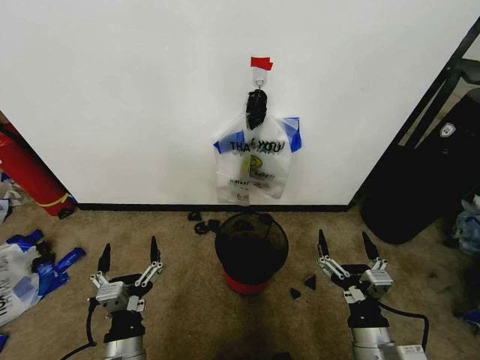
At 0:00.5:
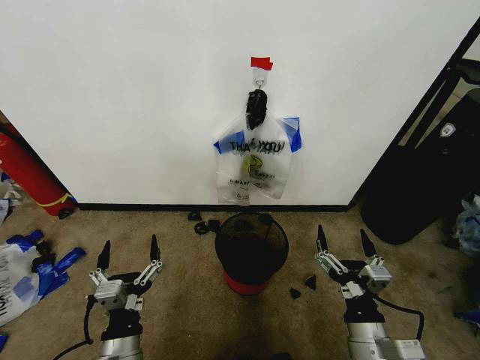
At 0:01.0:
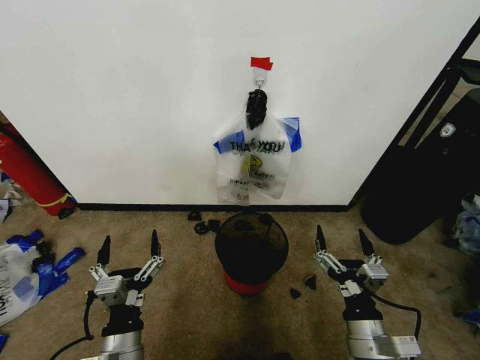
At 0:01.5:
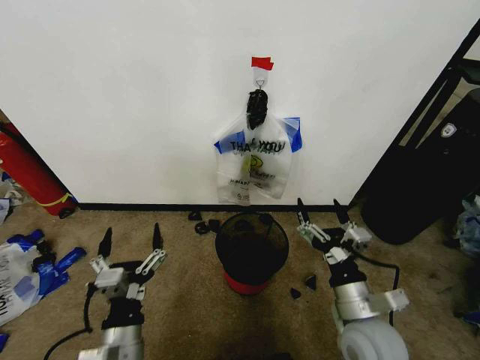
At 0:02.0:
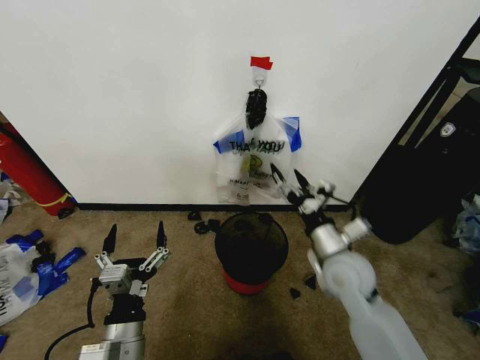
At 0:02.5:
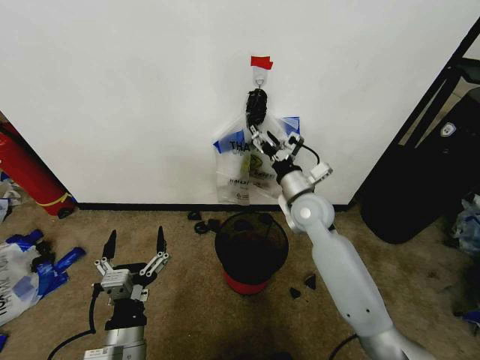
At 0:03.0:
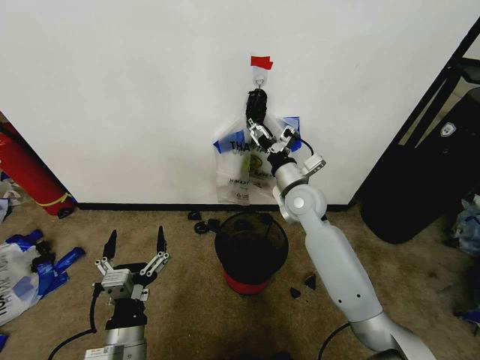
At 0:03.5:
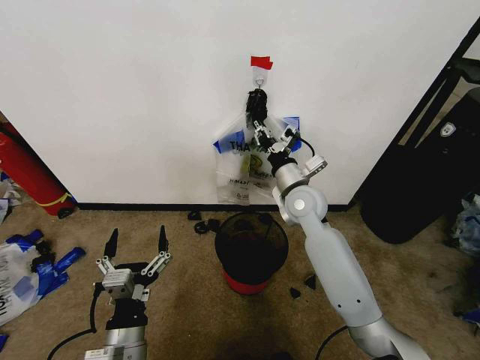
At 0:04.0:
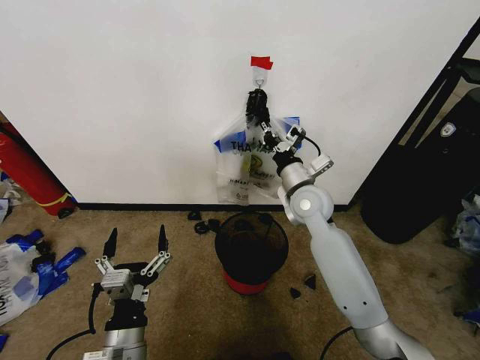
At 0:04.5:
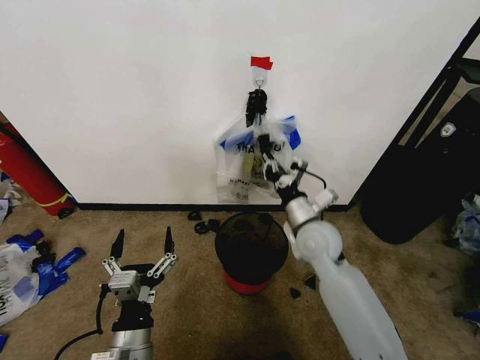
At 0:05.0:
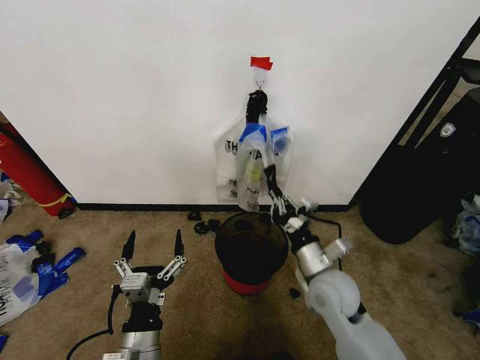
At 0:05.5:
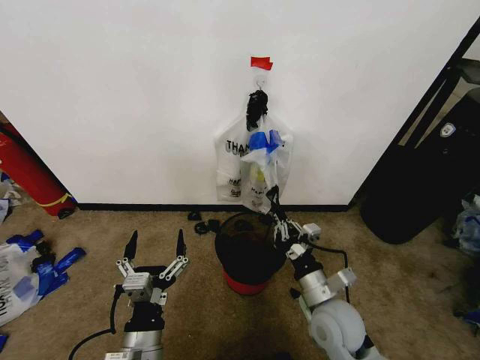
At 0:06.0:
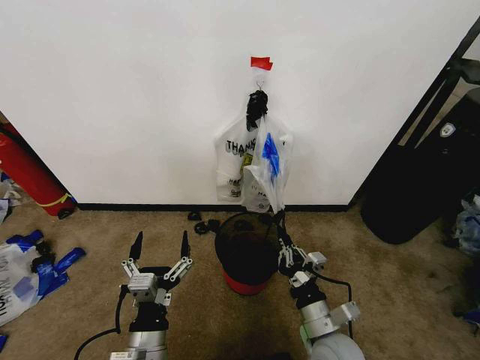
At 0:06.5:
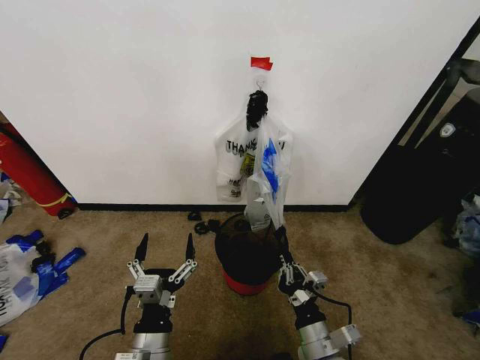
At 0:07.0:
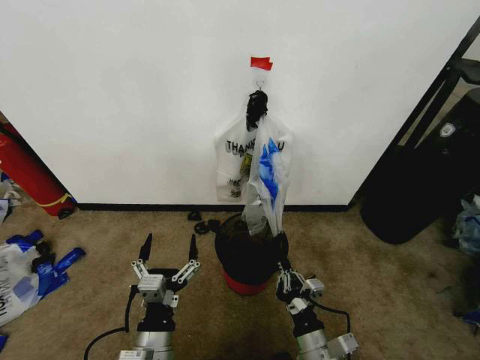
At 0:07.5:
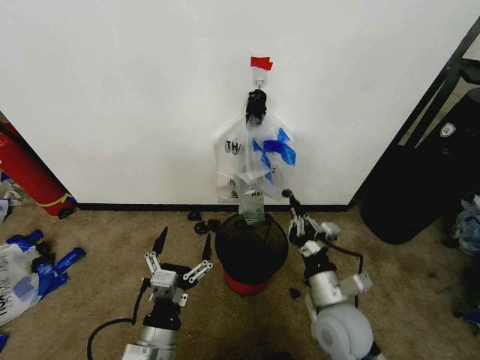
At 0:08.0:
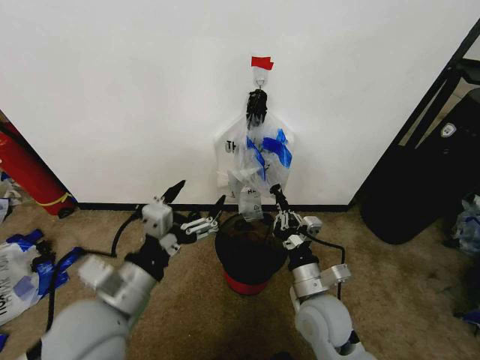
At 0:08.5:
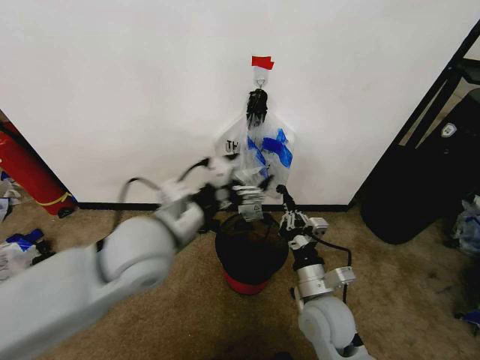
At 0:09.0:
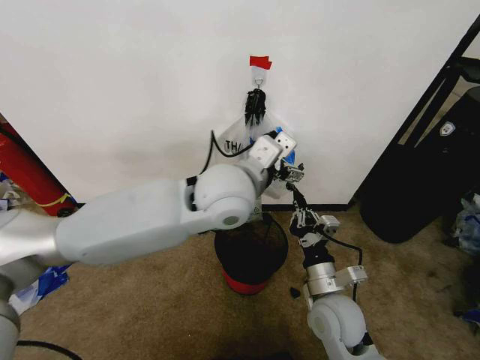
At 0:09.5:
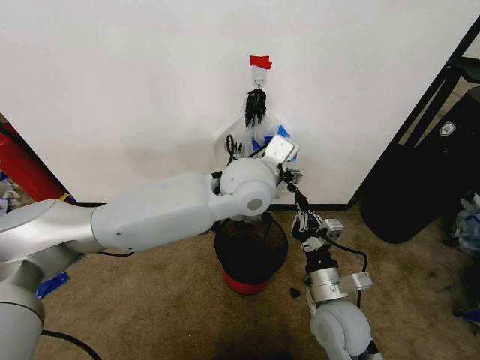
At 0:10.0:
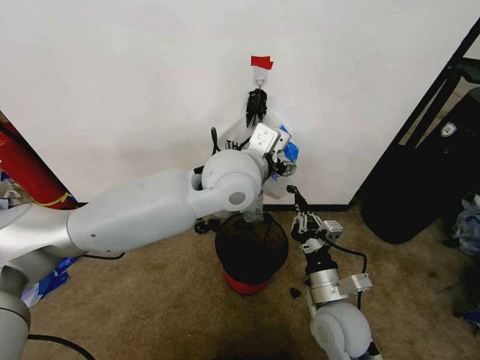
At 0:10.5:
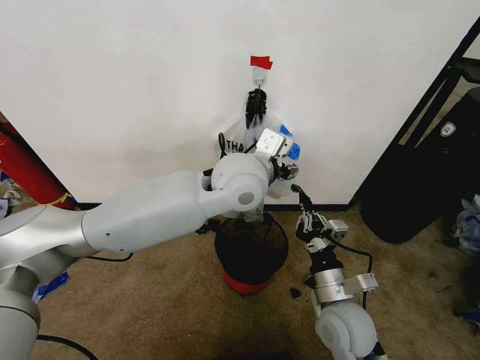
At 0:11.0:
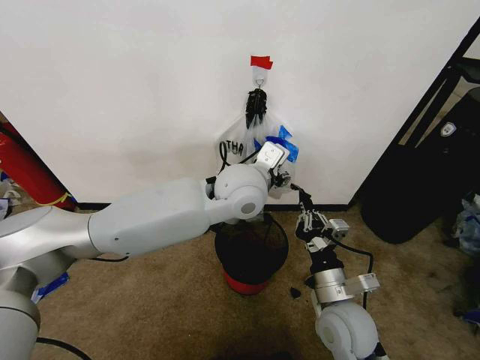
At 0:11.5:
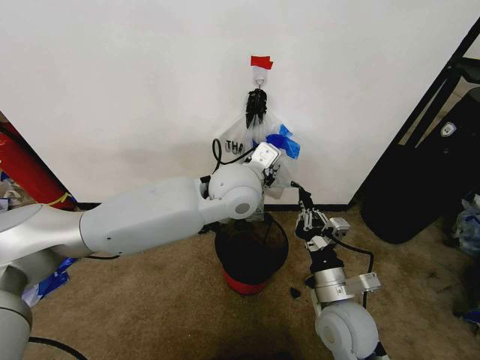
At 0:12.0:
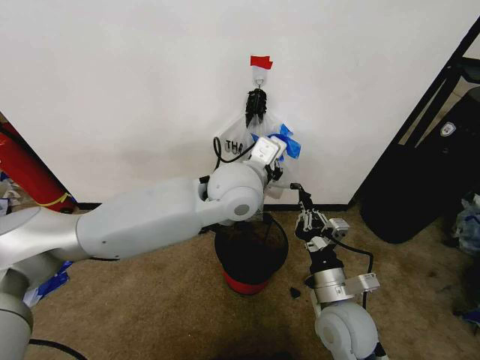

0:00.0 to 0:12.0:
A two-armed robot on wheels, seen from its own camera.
Task of the whole recording: Pick up the garbage bag from the wall and place it over the trash bin.
0:02.0 to 0:04.0: The right gripper is displaced forward and upward by approximately 15 cm, and closes its fingers.
0:04.0 to 0:06.0: The right gripper shifts approximately 30 cm backward and downward.
0:06.0 to 0:08.0: The right gripper travels forward by roughly 5 cm, while the left gripper heads upward and forward, covering roughly 15 cm.
0:08.0 to 0:10.0: The left gripper is displaced to the right, forward and upward by approximately 30 cm.
0:10.0 to 0:12.0: The left gripper closes its fingers.

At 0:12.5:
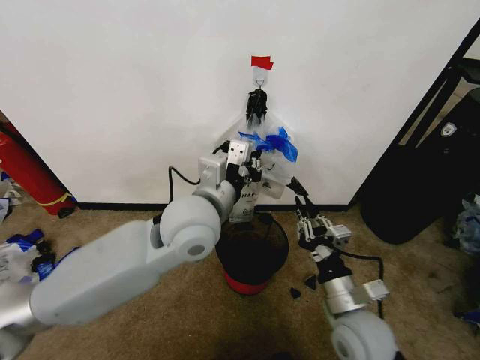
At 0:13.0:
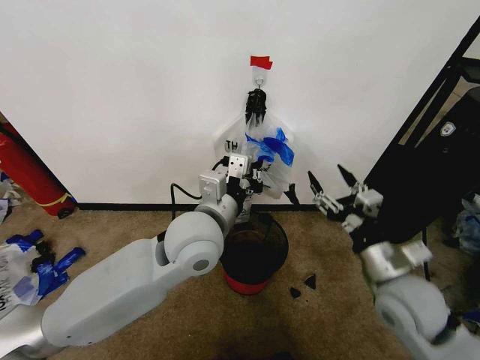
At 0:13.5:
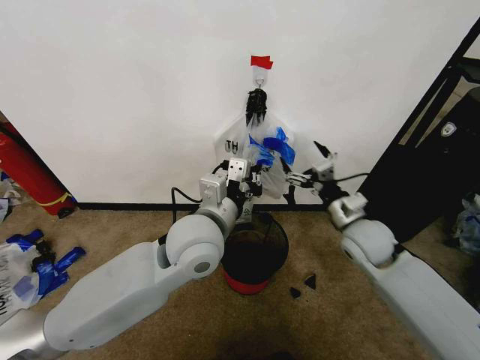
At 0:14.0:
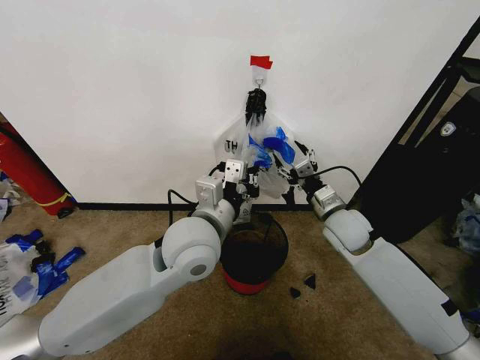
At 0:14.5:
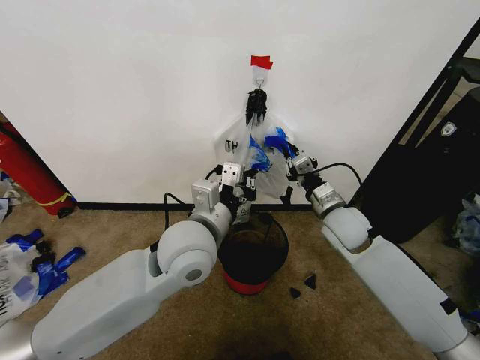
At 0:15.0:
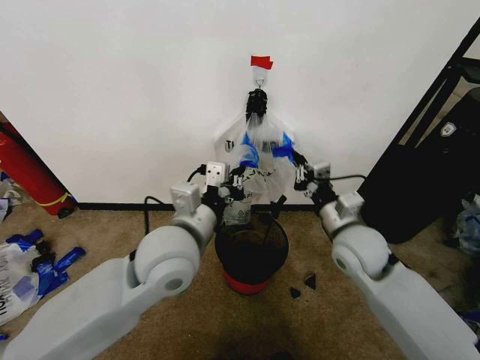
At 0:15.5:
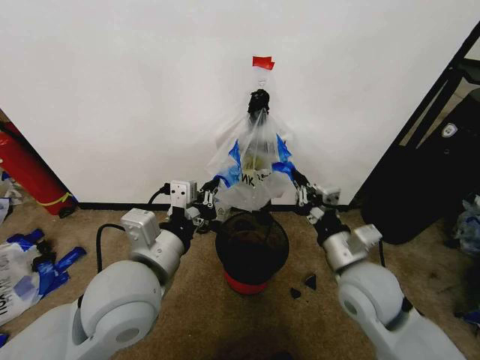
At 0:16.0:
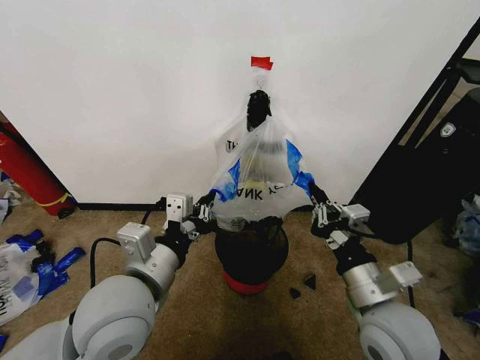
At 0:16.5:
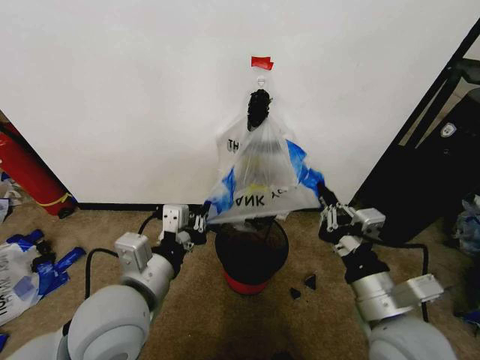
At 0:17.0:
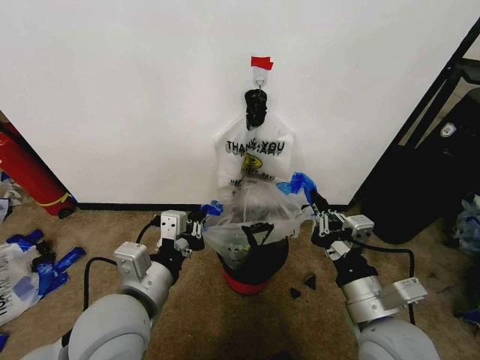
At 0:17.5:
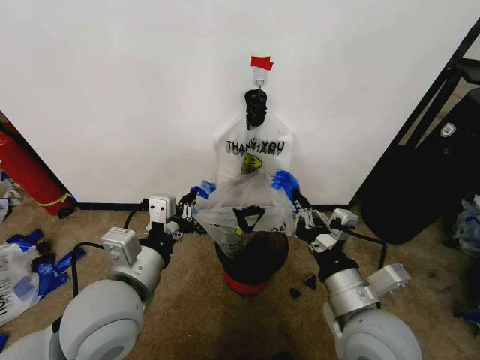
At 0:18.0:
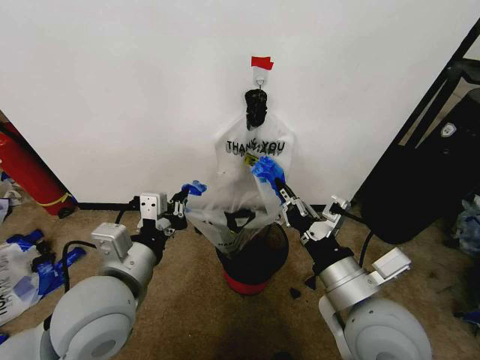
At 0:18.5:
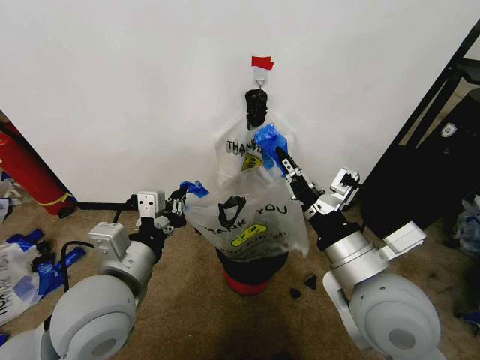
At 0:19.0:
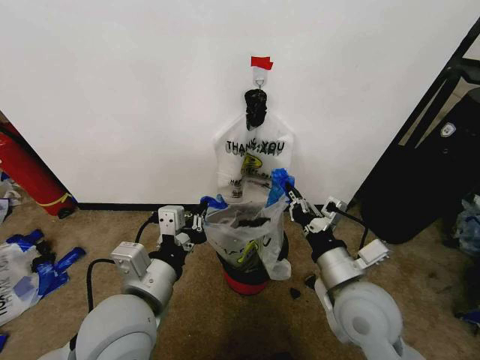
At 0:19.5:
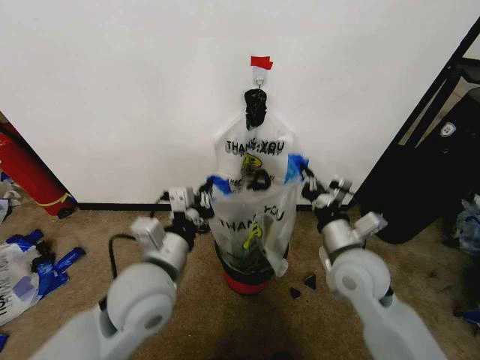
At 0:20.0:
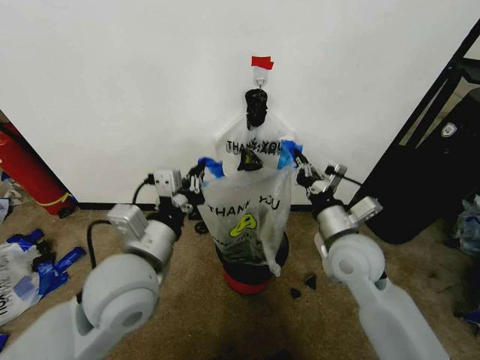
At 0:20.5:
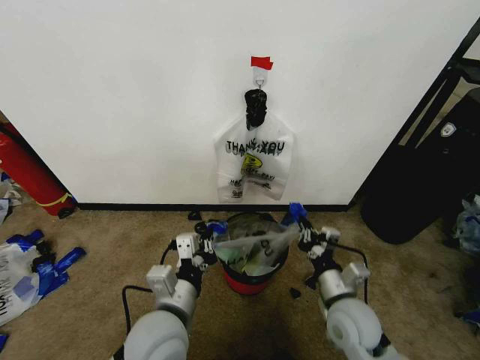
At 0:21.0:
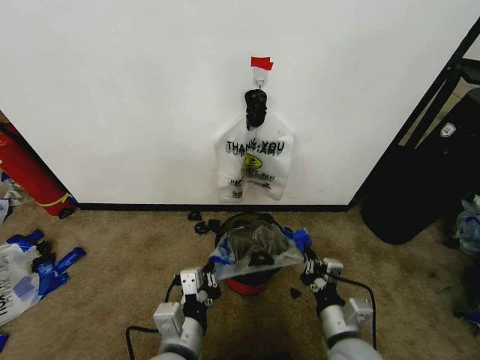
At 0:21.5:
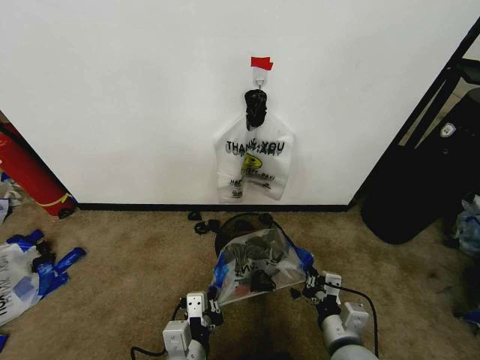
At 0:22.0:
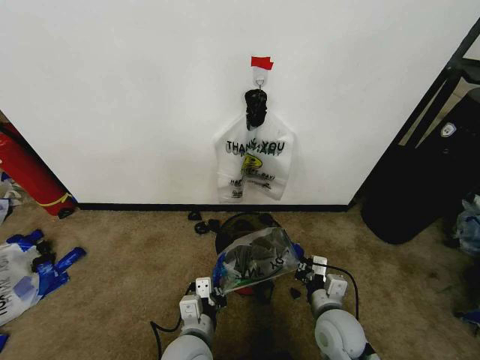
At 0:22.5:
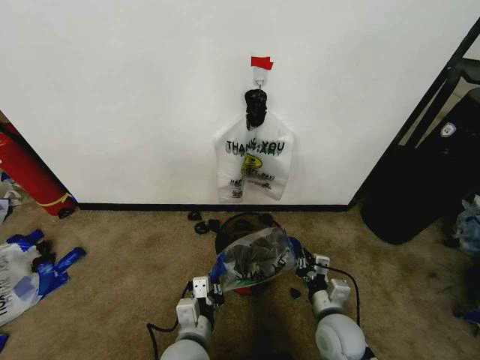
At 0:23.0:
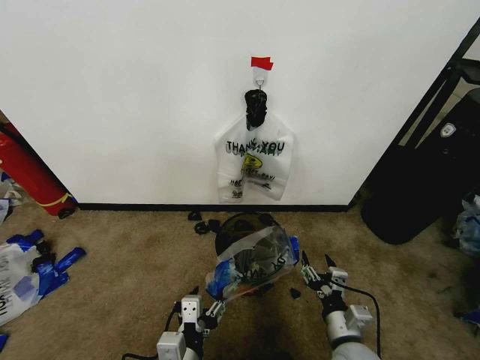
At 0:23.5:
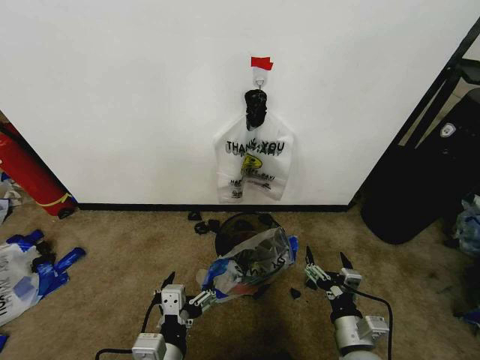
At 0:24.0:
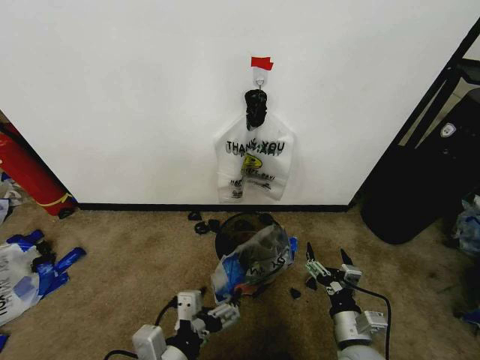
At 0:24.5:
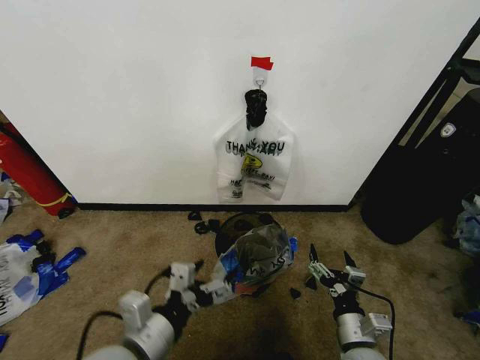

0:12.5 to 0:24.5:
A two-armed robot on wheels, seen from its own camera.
Task of the whole recording: Pick up the garbage bag from the wall and place it over the trash bin.
0:12.5 to 0:14.5: The right gripper moves forward, roughly 20 cm, and opens, then closes again.
0:14.5 to 0:16.5: The right gripper heads backward, covering about 25 cm; the left gripper goes approximately 15 cm backward and to the left.
0:16.5 to 0:18.5: The right gripper heads upward, covering about 5 cm.
0:18.5 to 0:20.5: The right gripper moves downward, about 20 cm, while the left gripper is displaced downward and to the right by roughly 10 cm.
0:20.5 to 0:22.5: Both grippers travel together downward, about 10 cm. The right gripper travels backward and back again, some 10 cm each way.
0:22.5 to 0:24.5: The right gripper is displaced backward by approximately 5 cm, and opens its fingers. The left gripper is displaced upward and to the left by some 15 cm, and opens its fingers.

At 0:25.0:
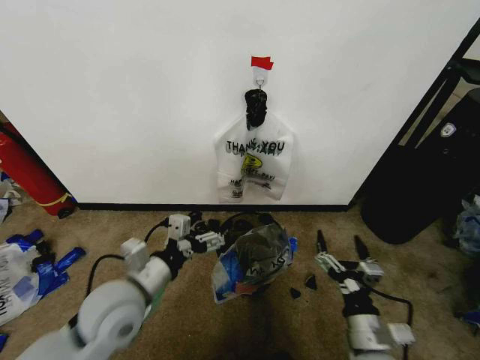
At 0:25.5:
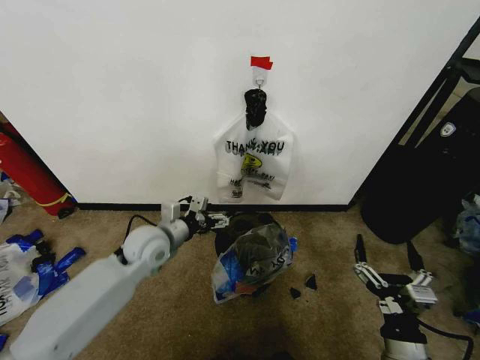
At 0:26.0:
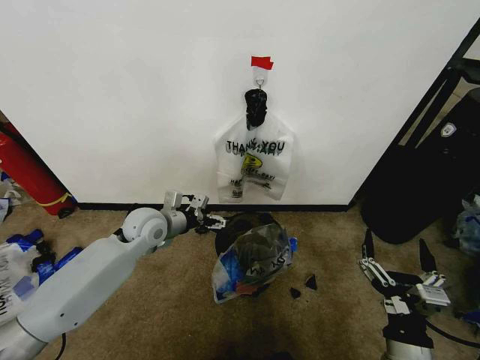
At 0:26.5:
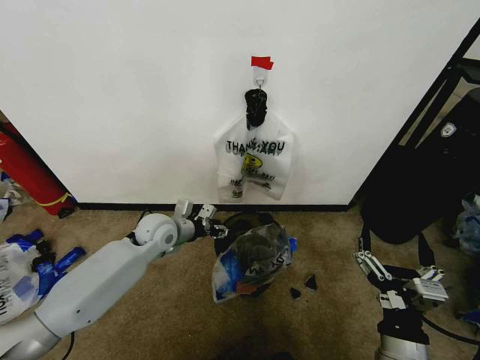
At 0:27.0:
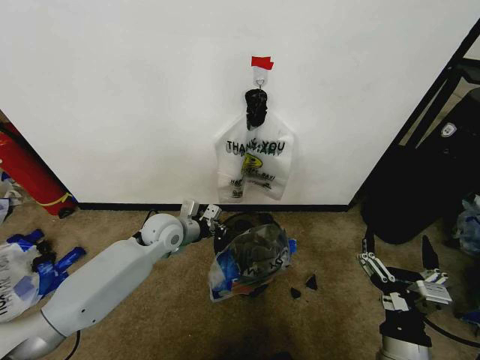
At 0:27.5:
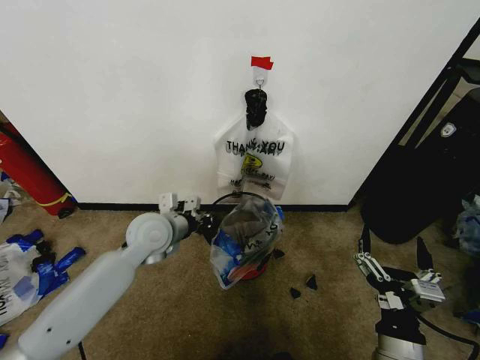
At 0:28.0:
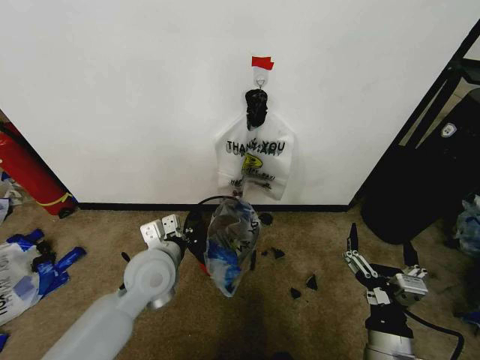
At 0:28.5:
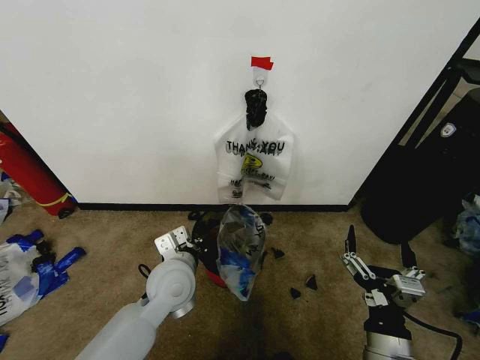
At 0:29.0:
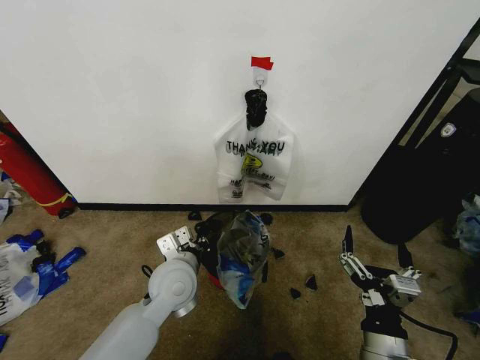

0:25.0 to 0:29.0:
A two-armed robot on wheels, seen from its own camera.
Task of the whole recording: Pick up the garbage bag from the wall and place it over the trash bin.
0:25.0 to 0:27.0: The right gripper is displaced upward by about 5 cm, while the left gripper goes roughly 20 cm forward, and closes up.
0:27.0 to 0:29.0: The left gripper is displaced backward and to the right by some 15 cm.
